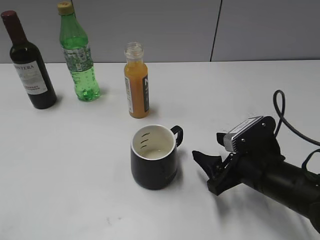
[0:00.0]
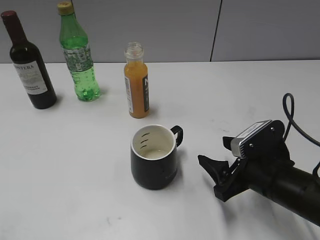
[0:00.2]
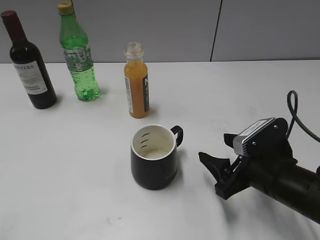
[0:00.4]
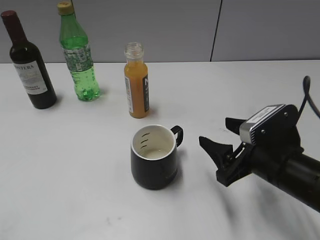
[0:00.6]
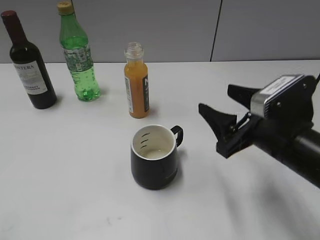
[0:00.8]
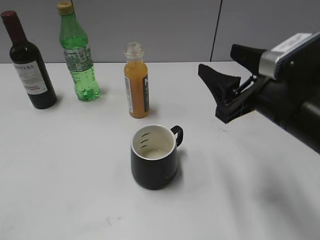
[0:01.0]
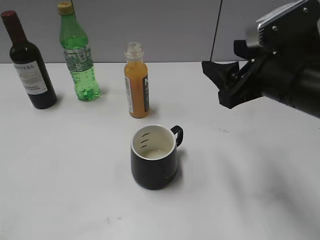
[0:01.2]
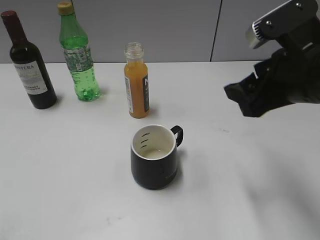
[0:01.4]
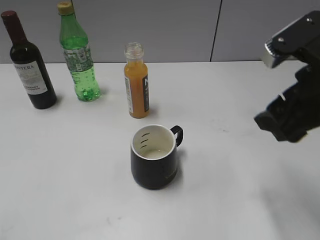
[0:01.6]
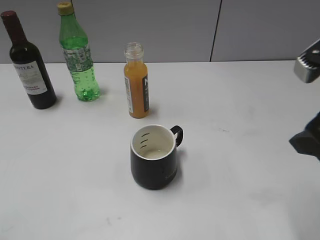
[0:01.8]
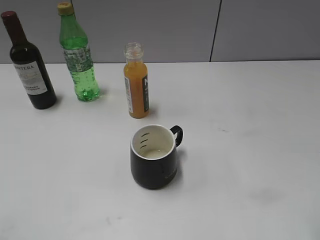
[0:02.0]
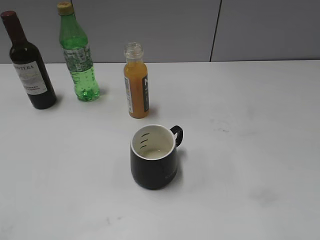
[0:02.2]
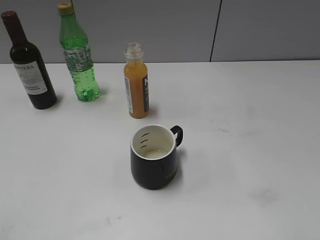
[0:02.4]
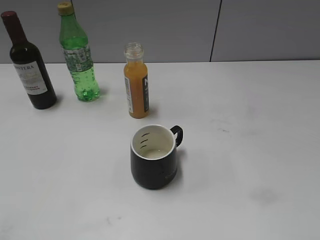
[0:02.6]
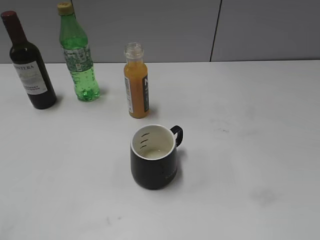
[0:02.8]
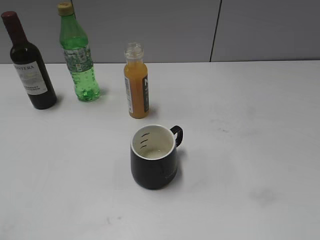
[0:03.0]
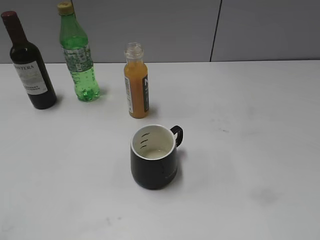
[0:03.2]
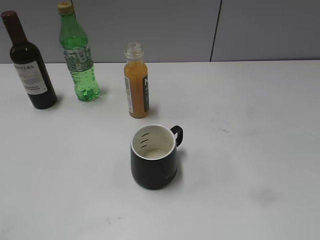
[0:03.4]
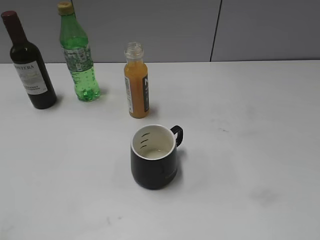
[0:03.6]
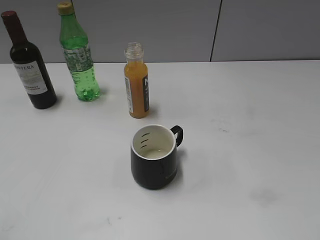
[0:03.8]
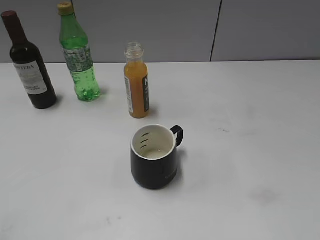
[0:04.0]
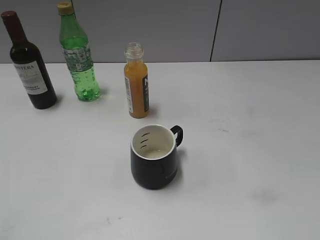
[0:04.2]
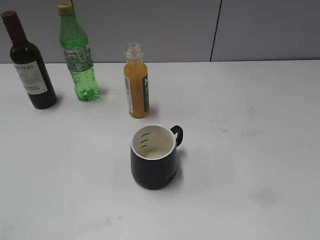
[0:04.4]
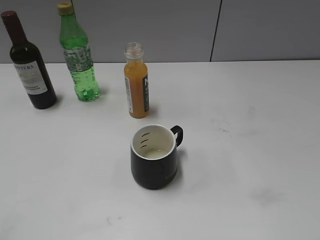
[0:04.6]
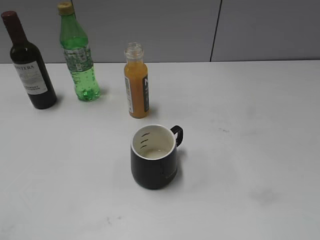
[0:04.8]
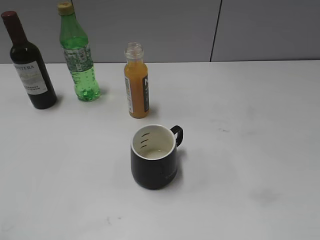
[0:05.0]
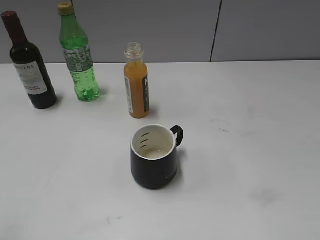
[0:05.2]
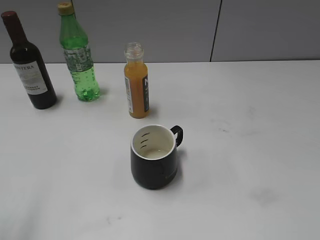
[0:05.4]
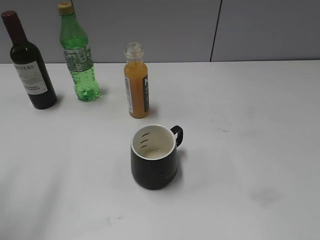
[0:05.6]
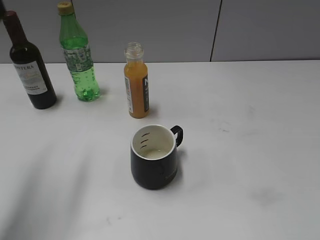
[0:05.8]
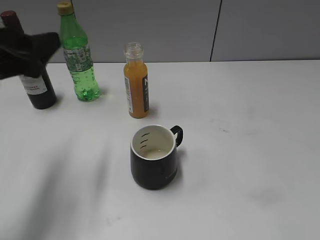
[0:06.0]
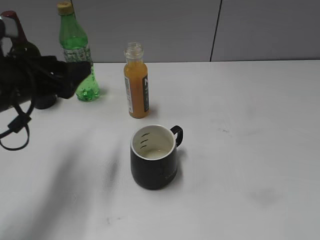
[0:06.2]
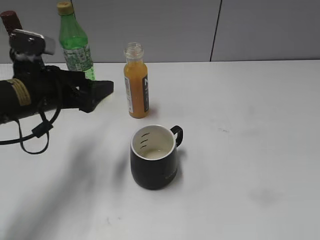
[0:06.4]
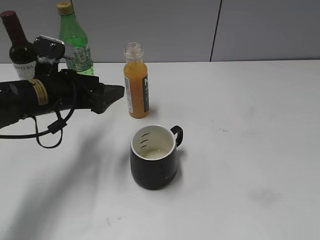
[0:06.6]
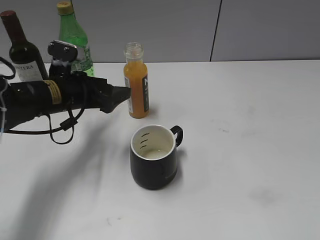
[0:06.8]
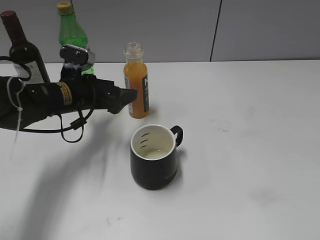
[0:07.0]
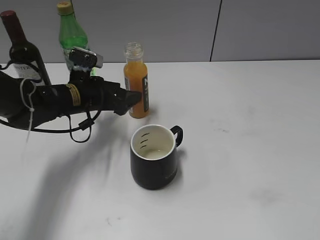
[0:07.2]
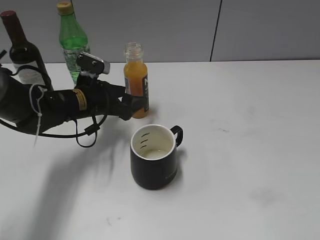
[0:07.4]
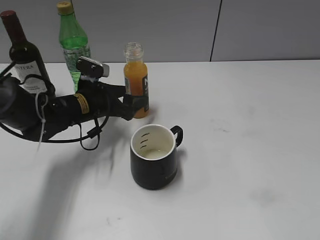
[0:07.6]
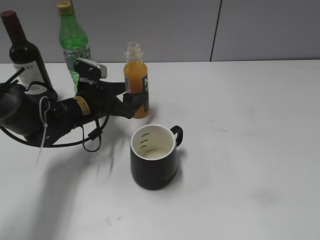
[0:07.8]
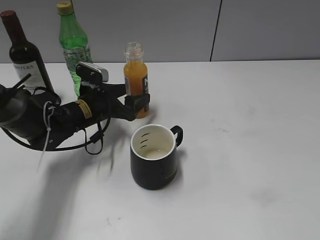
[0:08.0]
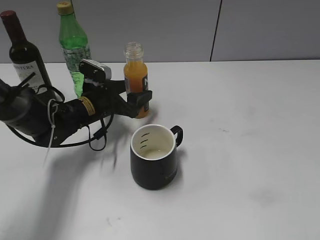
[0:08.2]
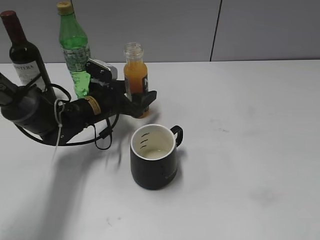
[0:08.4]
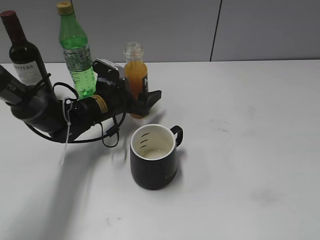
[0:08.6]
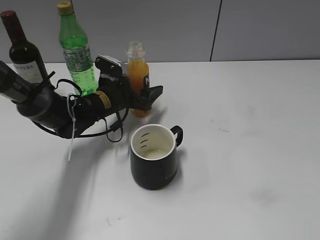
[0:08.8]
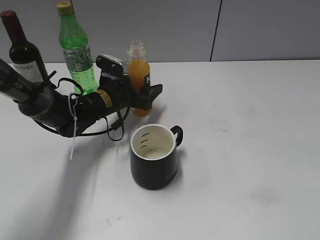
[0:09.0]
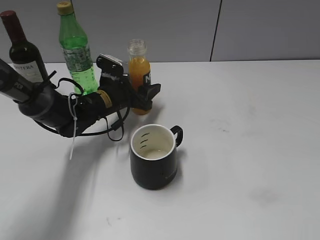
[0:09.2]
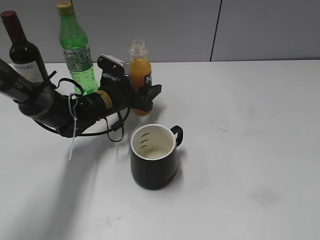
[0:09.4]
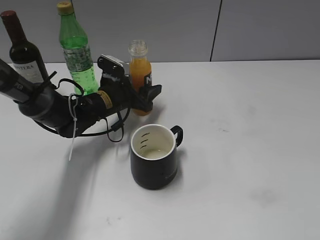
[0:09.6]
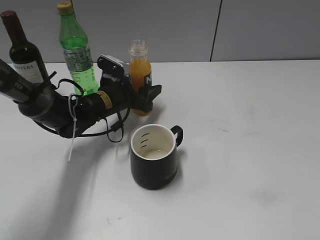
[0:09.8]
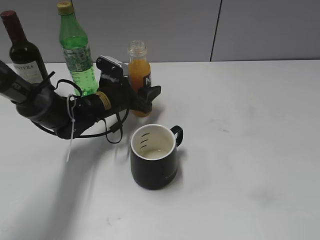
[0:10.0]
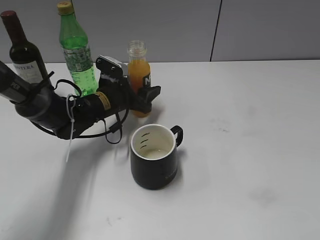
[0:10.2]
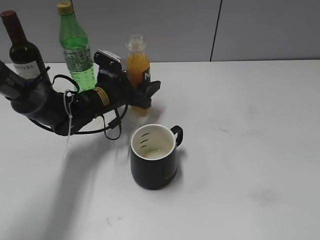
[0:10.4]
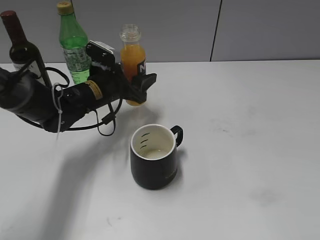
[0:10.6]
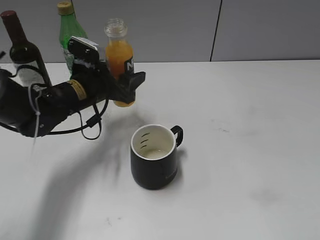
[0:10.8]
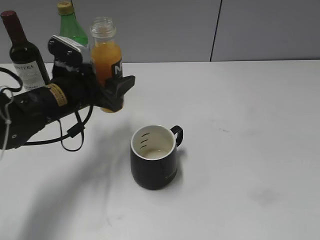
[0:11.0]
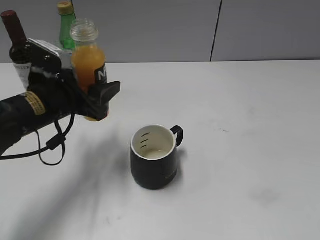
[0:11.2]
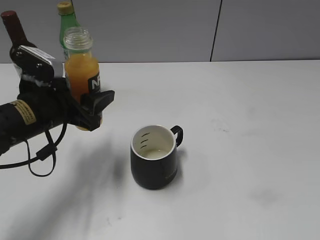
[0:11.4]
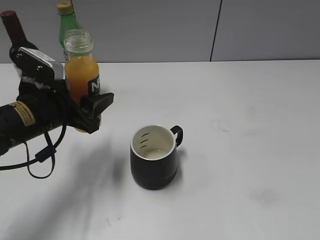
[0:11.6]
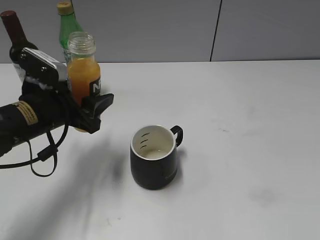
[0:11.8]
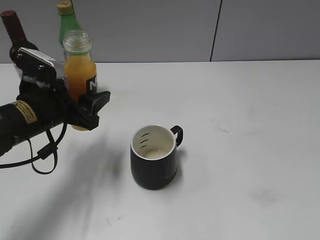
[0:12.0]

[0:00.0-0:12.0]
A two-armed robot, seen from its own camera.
Step, 0:00.0 to 0:10.0: Grasp the bottle with orange juice with left gripper.
0:00.0 to 0:01.6: The right gripper is displaced upward by some 20 cm.
0:01.6 to 0:03.0: The right gripper travels backward and to the right by about 25 cm.
0:03.0 to 0:04.4: Both grippers stay put.
0:04.4 to 0:06.0: The left gripper is displaced forward by about 25 cm, and opens.
0:06.0 to 0:07.6: The left gripper travels downward, forward and to the right by some 25 cm.
0:07.6 to 0:09.0: The left gripper shifts by approximately 5 cm.
0:09.0 to 0:10.4: Both grippers stay put.
0:10.4 to 0:12.0: The left gripper heads backward, to the left and upward, covering about 15 cm.

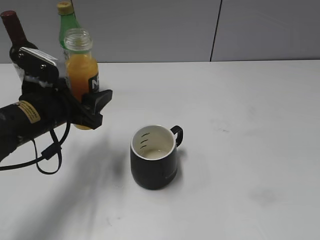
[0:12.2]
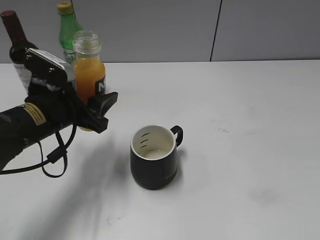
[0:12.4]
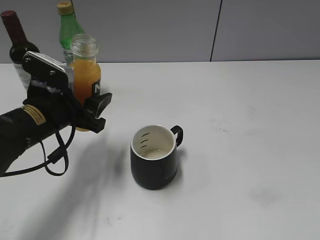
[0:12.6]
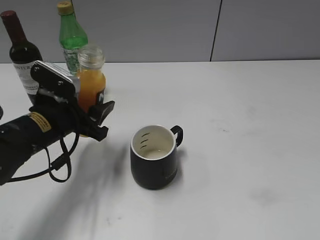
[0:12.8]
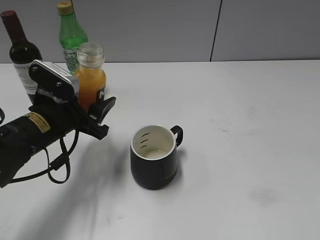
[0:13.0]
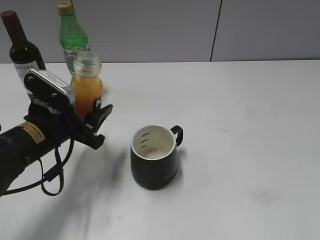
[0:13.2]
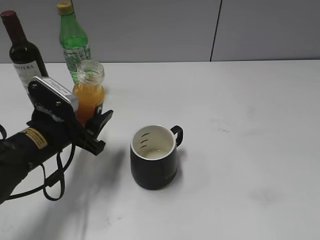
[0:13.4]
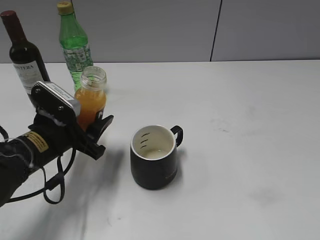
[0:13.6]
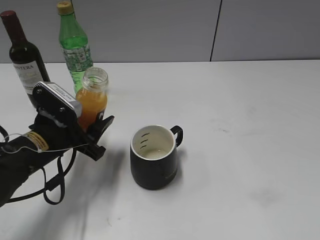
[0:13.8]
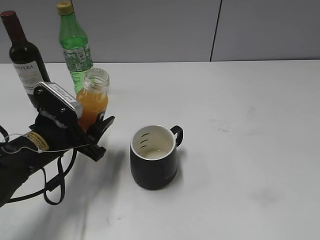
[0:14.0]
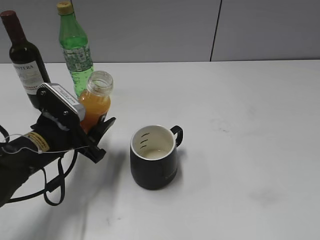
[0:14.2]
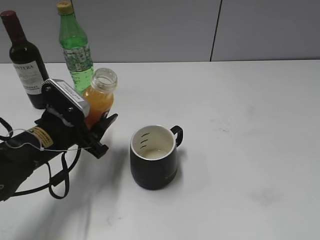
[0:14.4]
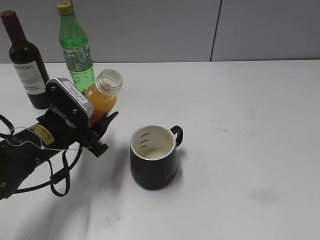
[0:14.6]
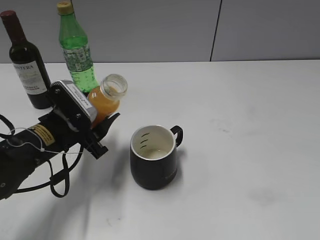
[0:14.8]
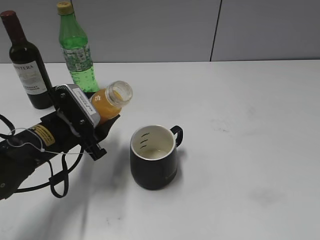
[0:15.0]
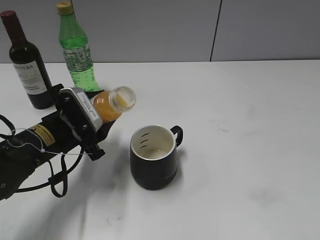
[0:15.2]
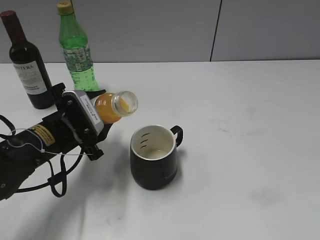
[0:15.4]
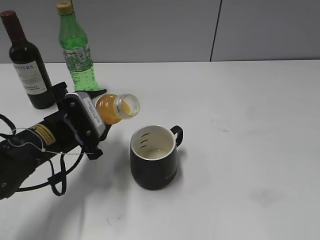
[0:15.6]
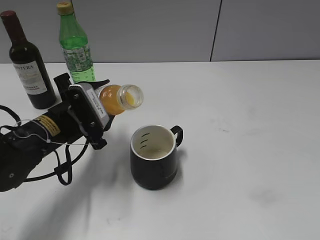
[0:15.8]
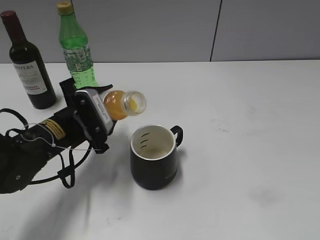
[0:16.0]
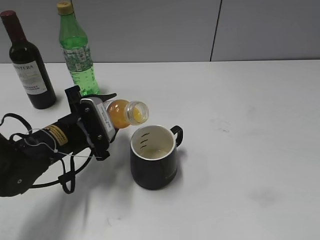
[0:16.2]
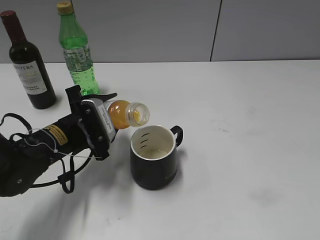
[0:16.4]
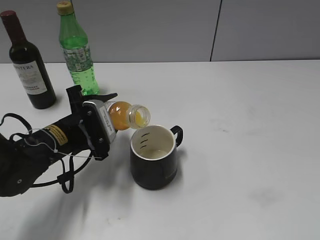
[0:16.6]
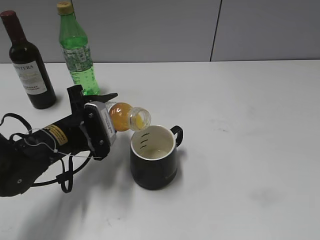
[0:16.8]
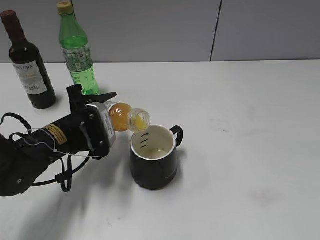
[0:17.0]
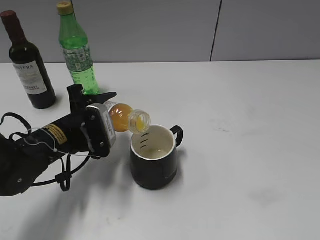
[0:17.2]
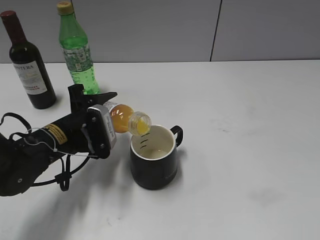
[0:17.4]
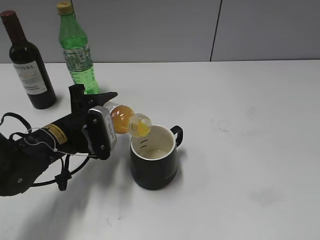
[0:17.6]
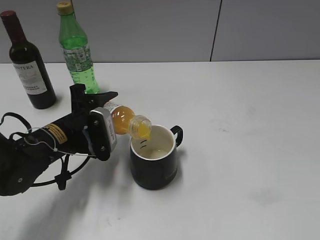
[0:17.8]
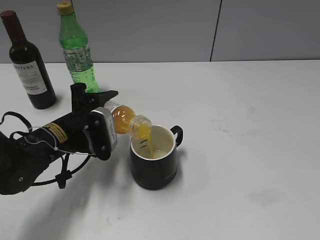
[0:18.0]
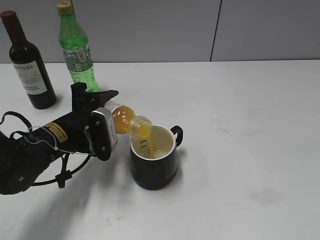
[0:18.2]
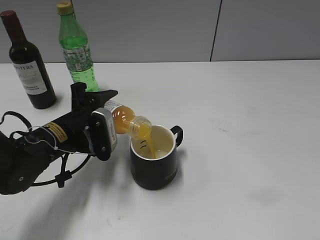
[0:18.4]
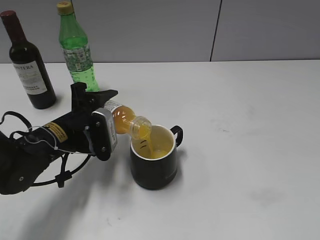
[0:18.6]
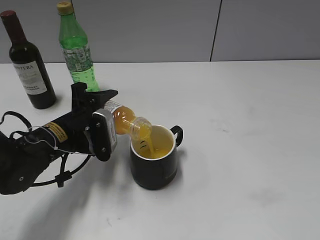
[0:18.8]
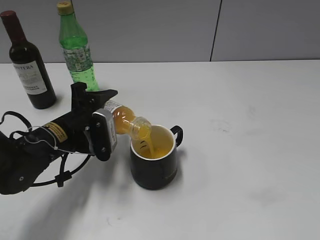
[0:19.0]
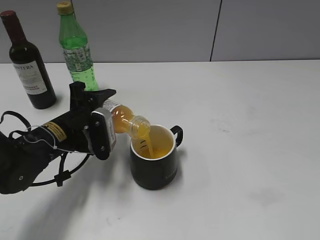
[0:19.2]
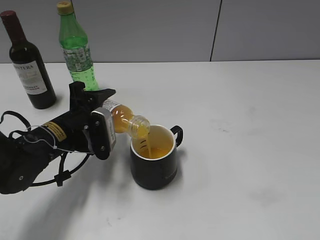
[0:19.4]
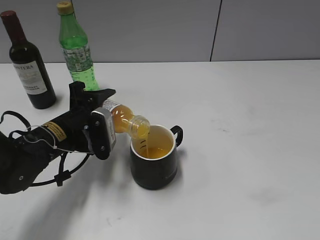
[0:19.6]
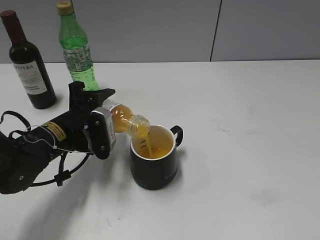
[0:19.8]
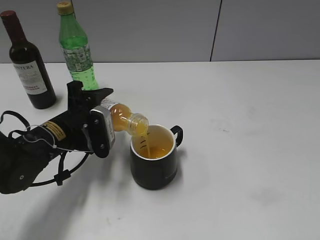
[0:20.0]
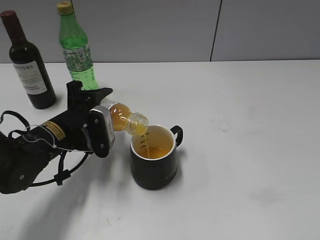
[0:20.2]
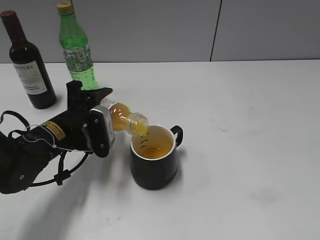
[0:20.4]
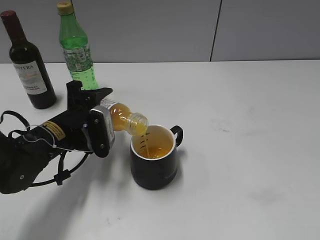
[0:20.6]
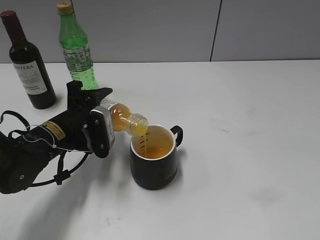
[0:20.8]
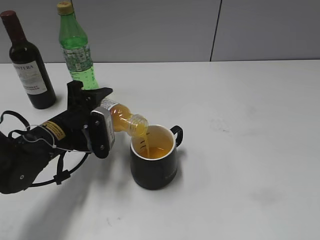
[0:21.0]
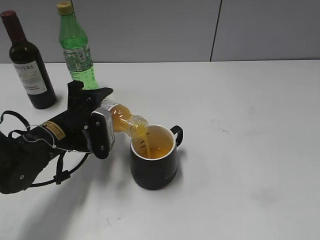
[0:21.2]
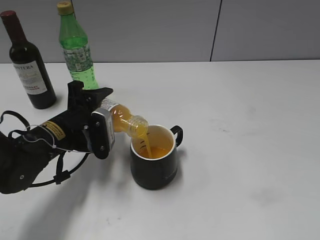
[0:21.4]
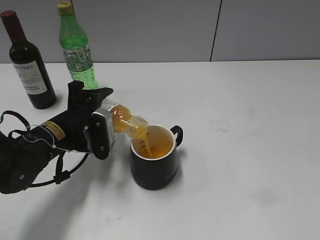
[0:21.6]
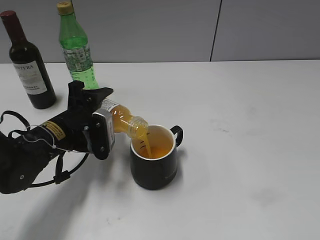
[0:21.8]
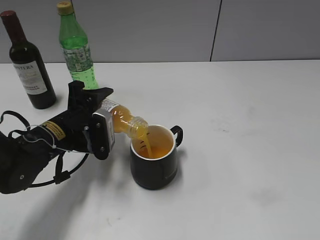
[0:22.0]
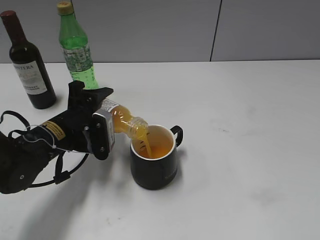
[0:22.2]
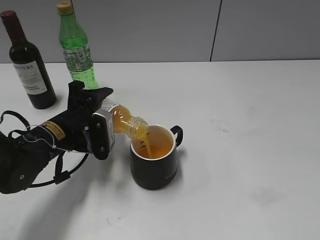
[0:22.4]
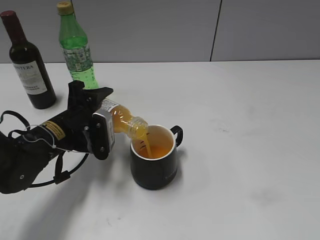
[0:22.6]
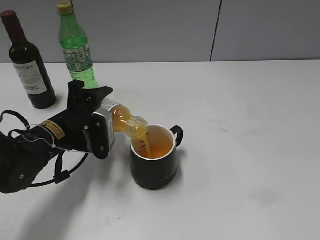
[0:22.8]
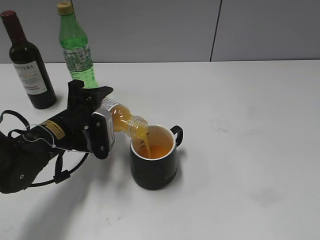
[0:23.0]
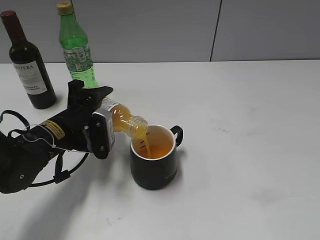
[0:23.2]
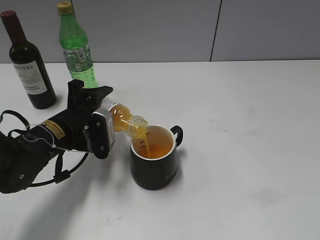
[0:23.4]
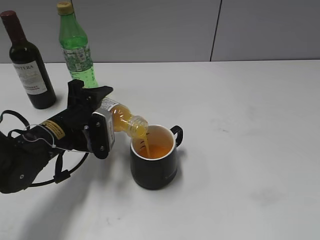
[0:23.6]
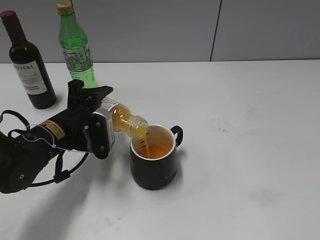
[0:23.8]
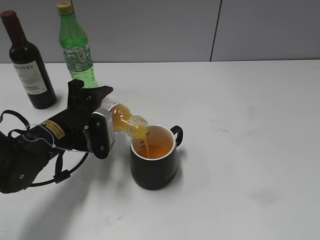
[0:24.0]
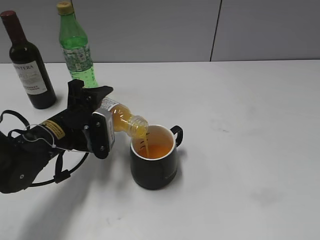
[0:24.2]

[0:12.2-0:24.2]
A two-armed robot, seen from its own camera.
0:12.2 to 0:13.8: The grippers stay close to where they were, moving slightly.
0:15.2 to 0:16.6: The grippers make only small movements.
0:16.6 to 0:18.2: There are only small adjustments of the grippers.
0:18.2 to 0:19.8: Both grippers stay about where they are.
0:19.8 to 0:24.2: Both grippers stay put.
